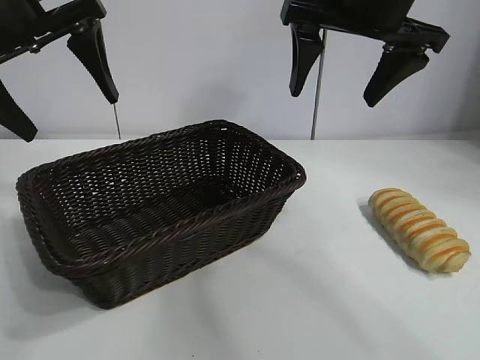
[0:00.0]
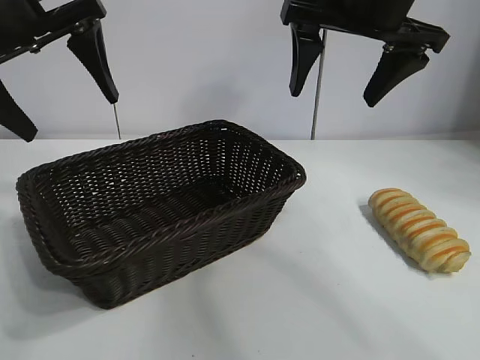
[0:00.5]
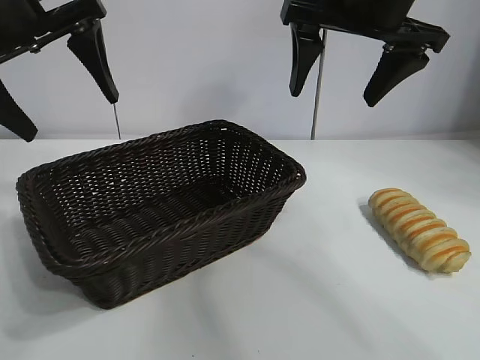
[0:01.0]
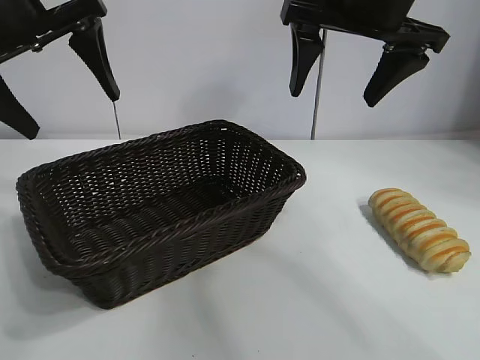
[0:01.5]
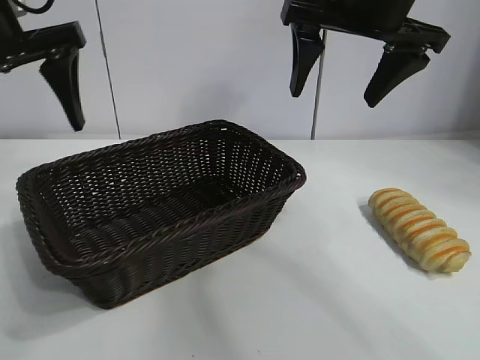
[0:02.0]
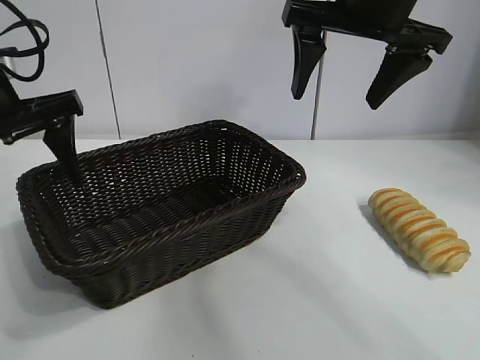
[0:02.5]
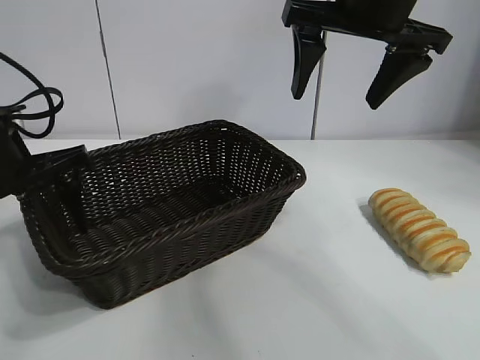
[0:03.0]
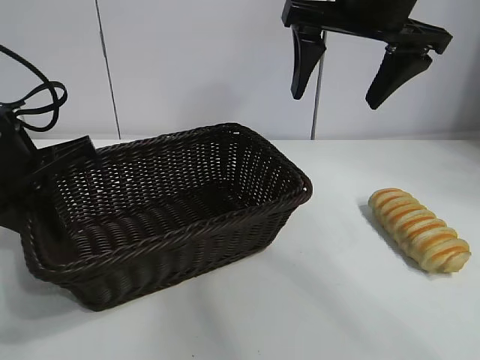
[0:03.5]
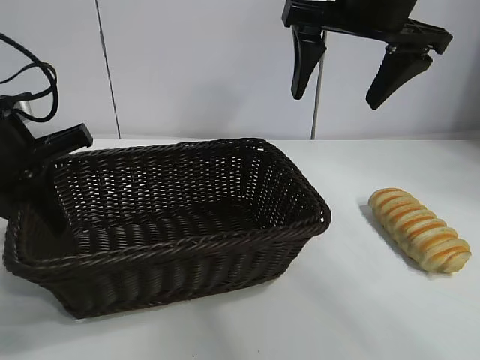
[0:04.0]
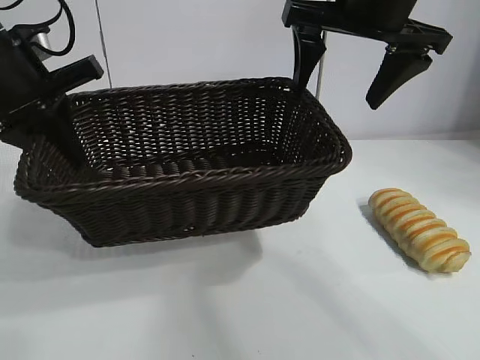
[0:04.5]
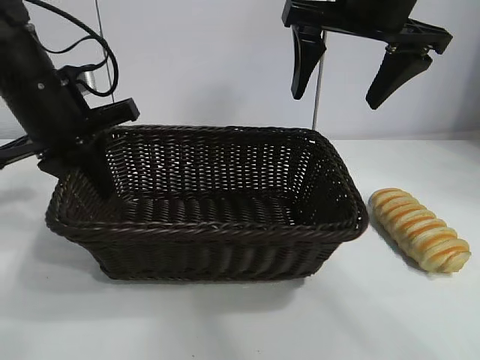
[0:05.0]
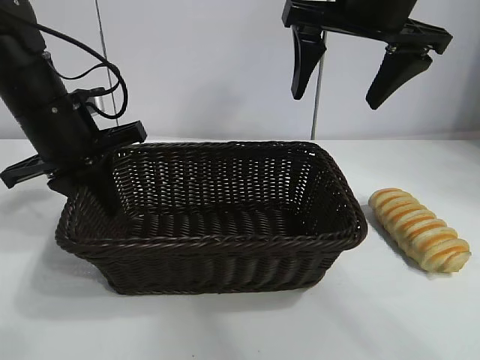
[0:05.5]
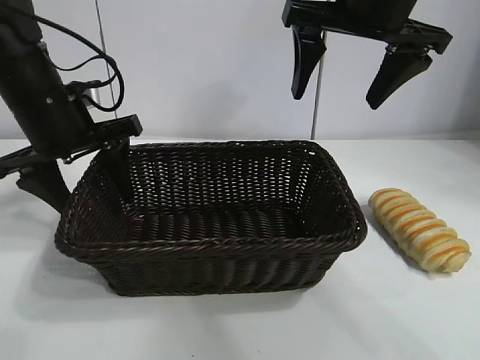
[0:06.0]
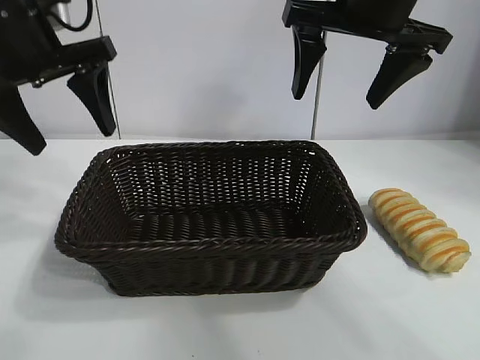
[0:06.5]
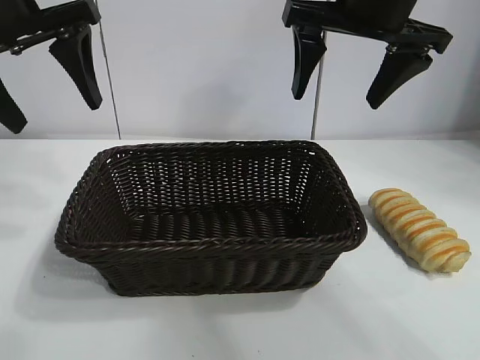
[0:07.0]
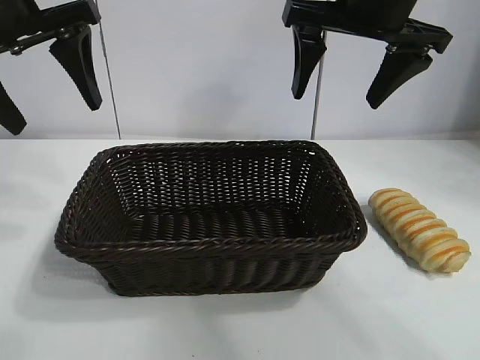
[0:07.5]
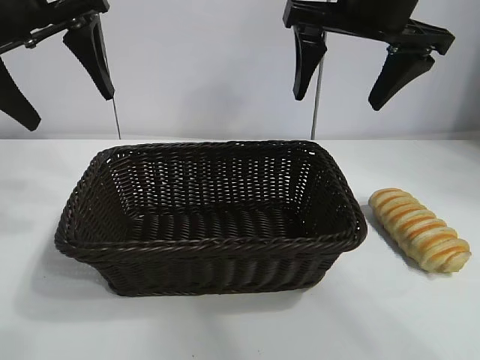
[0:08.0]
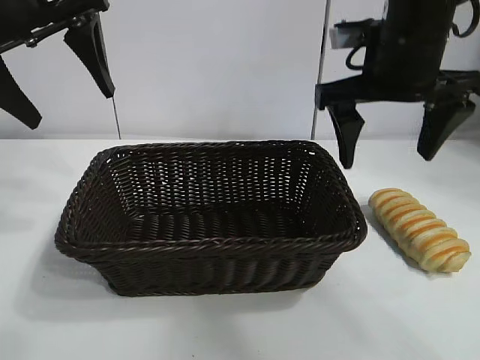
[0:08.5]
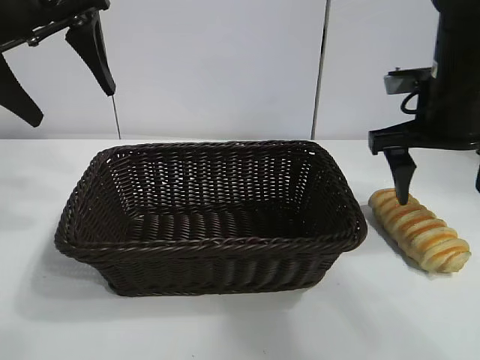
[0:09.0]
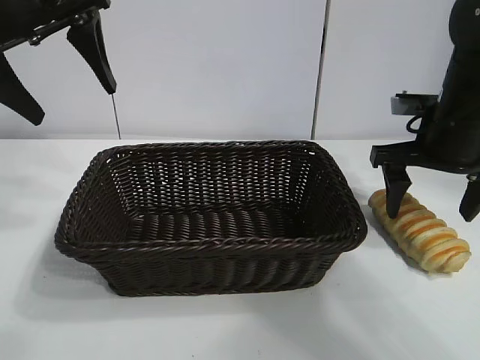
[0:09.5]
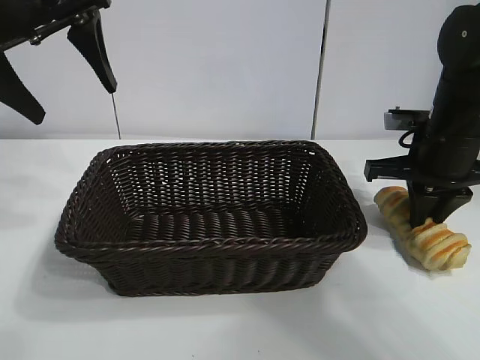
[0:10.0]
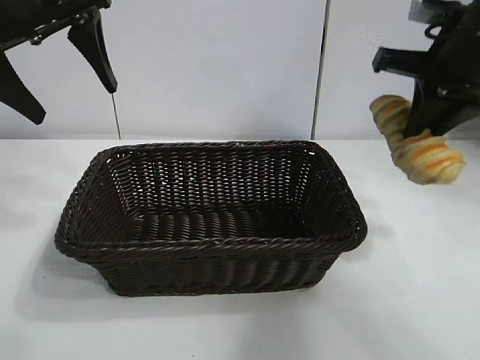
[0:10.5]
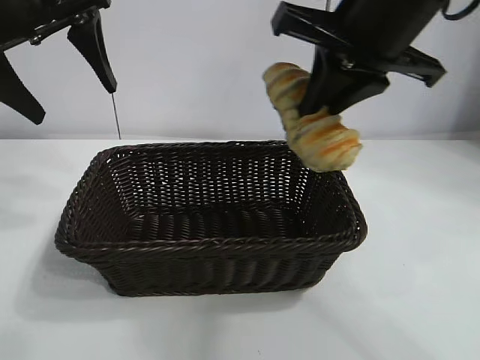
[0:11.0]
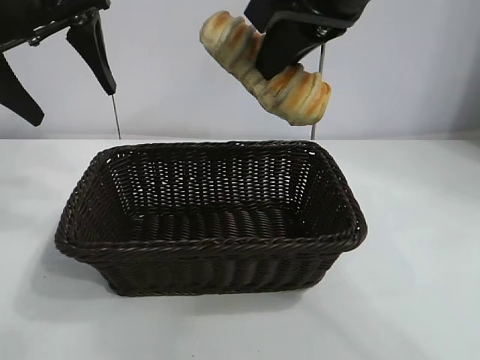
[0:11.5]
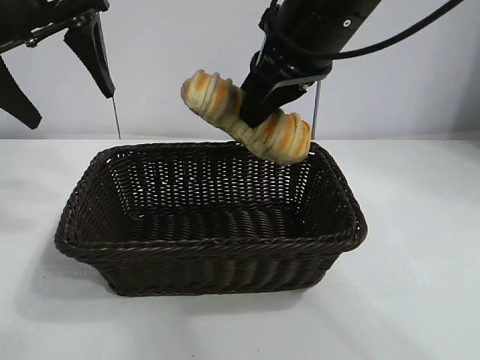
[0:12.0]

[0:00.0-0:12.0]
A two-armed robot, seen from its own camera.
Task of the whole recording: pick up the long bread and put it into the basket.
Step, 0:01.0 to 0:03.5: Grasp the basket with the left gripper.
Step, 0:04.0 to 0:06.0: Place the basket in the center of the table with the left gripper.
Step, 0:06.5 to 0:09.5: Grasp the long bread with right gripper.

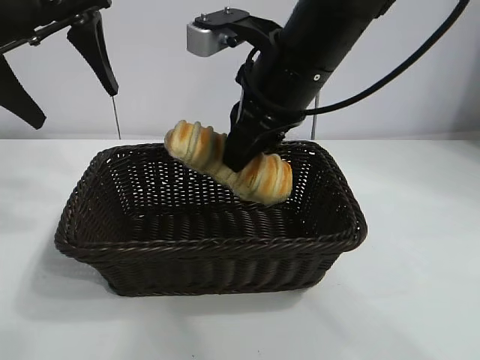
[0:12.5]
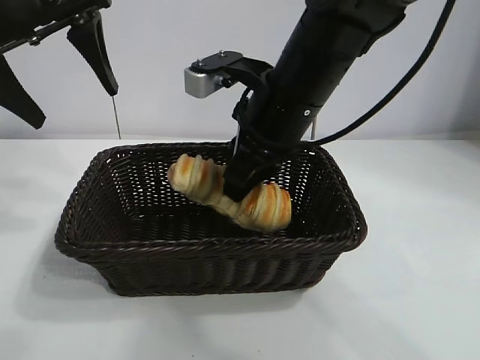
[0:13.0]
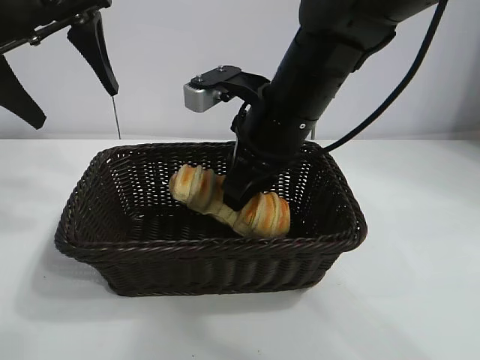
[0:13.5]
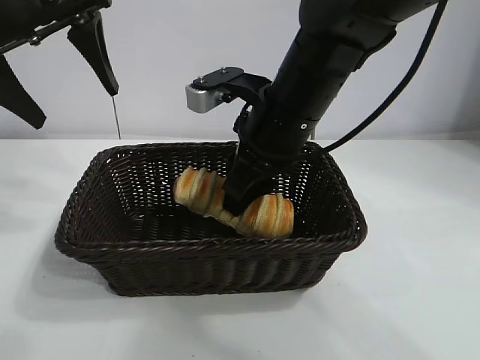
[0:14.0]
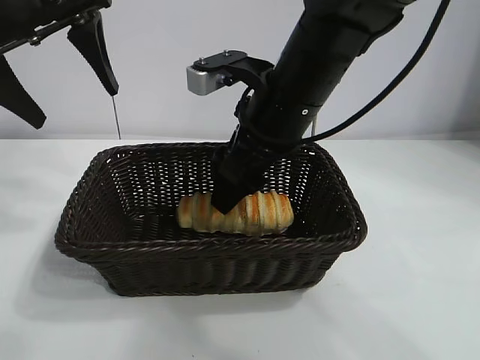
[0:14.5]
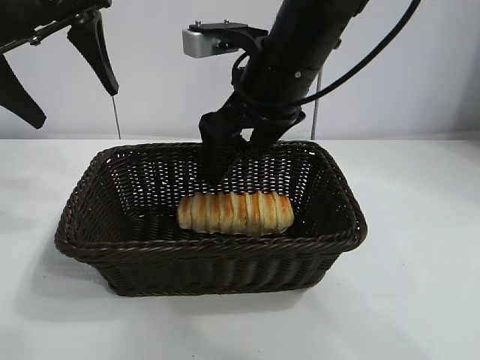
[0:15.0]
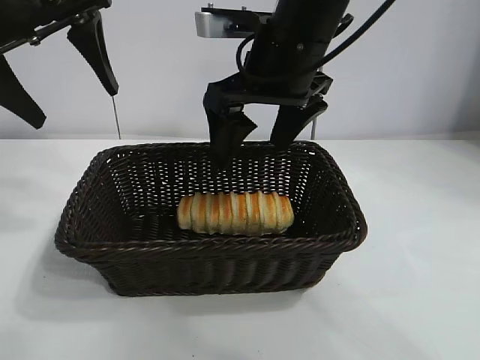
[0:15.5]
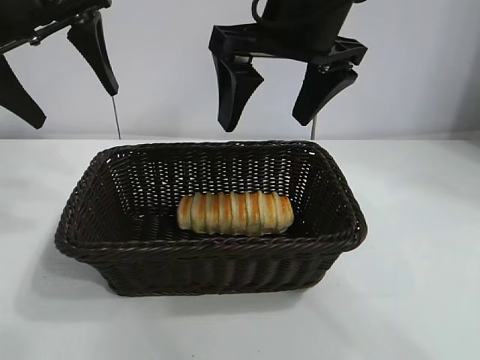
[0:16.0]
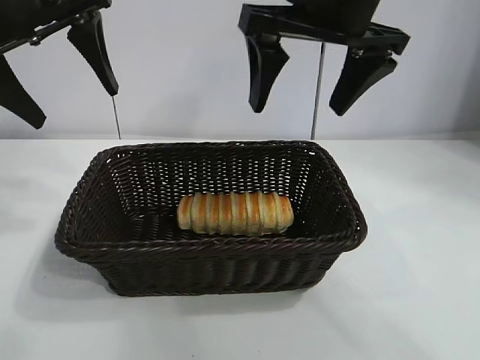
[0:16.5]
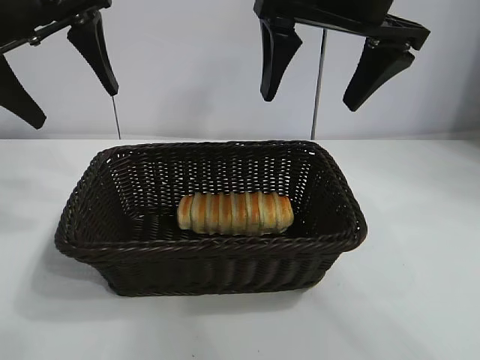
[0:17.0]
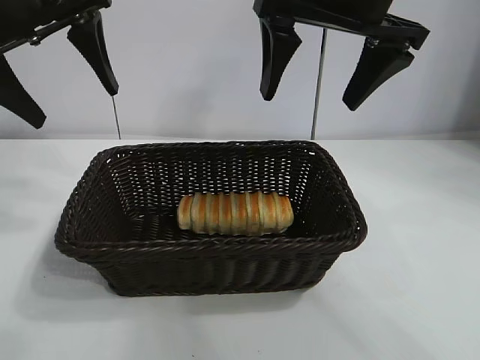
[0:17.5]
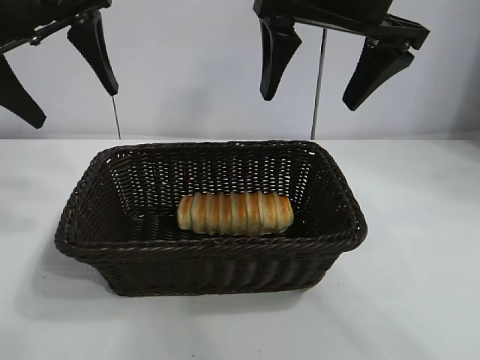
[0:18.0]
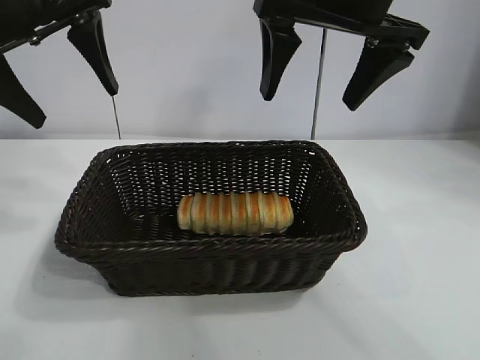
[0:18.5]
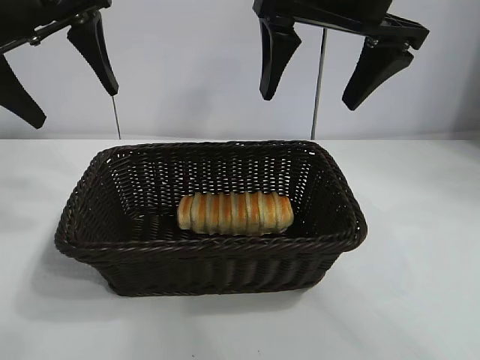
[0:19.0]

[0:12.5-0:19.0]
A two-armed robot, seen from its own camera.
Task of the whole recording: pick up the long bread and put it into the basket.
Step, 0:12.5 to 0:14.5: Place the long bread in the basket with right gripper.
